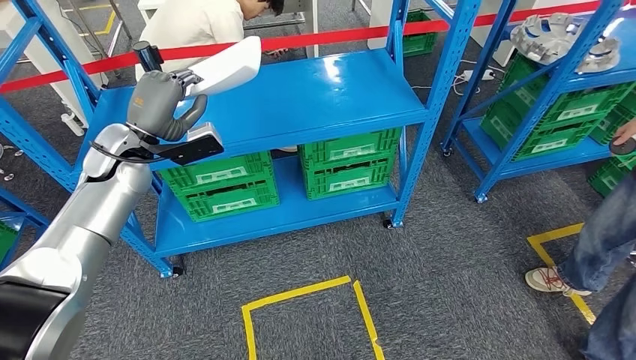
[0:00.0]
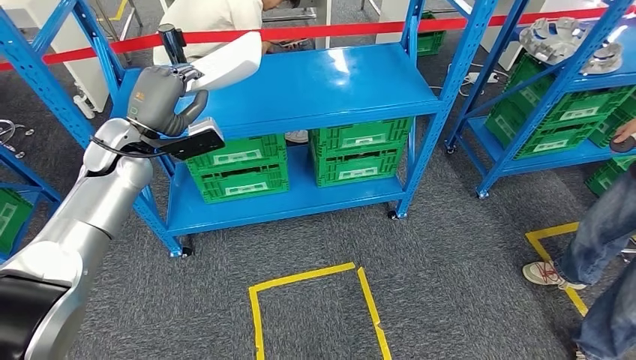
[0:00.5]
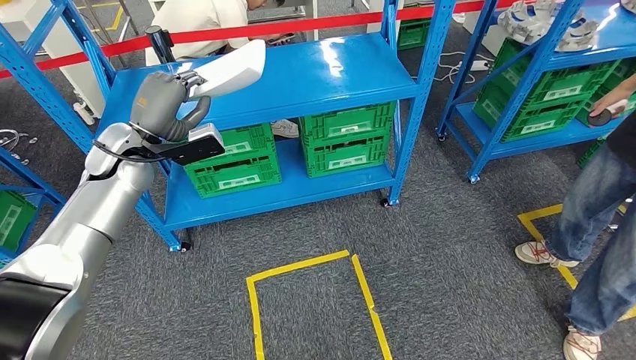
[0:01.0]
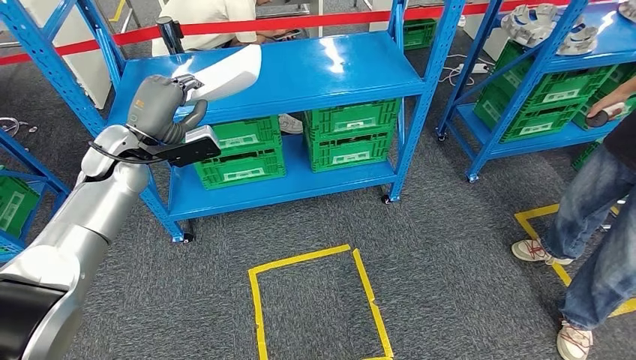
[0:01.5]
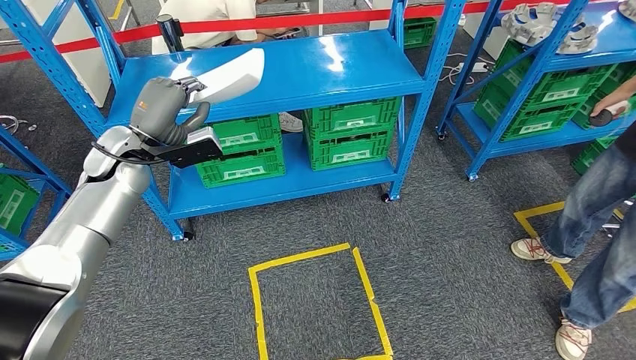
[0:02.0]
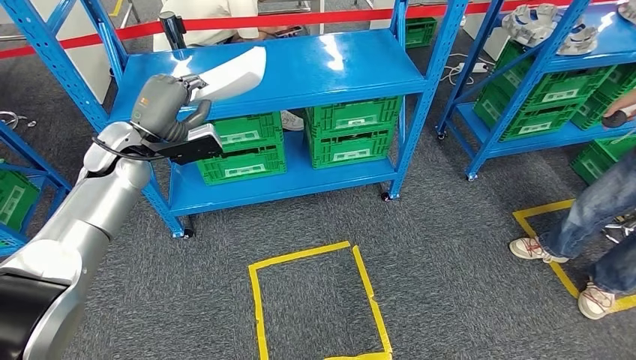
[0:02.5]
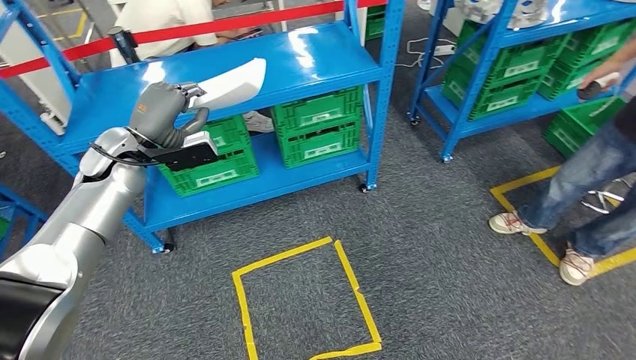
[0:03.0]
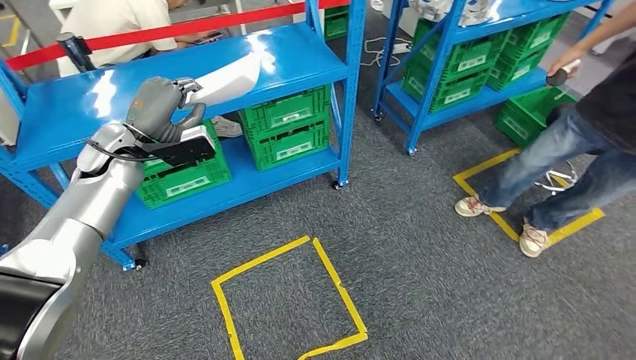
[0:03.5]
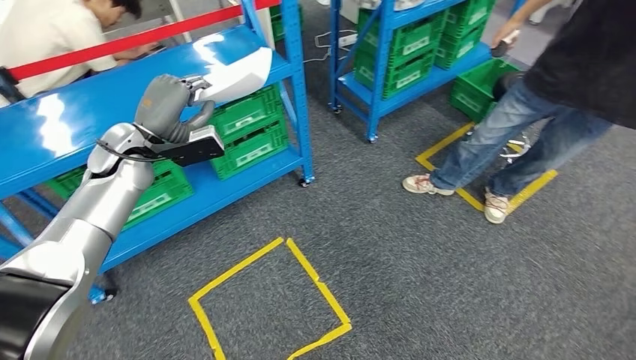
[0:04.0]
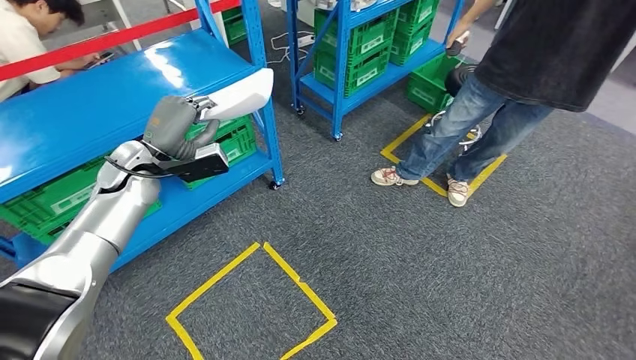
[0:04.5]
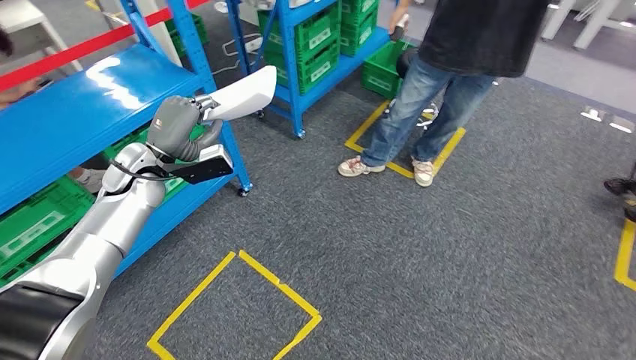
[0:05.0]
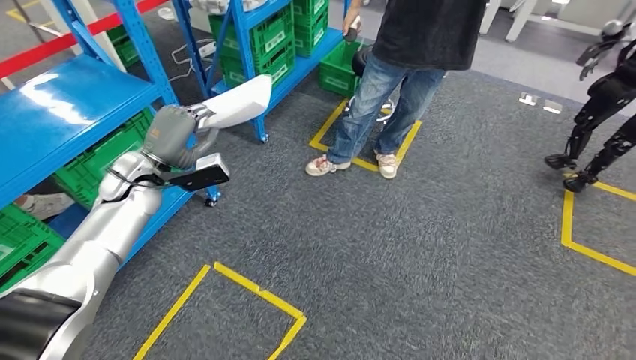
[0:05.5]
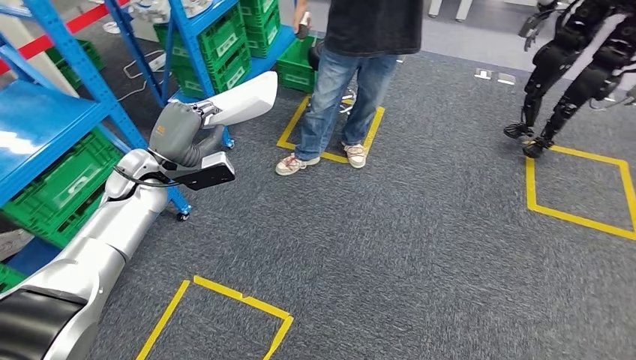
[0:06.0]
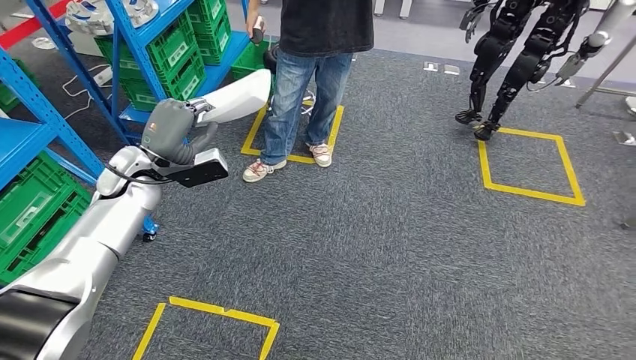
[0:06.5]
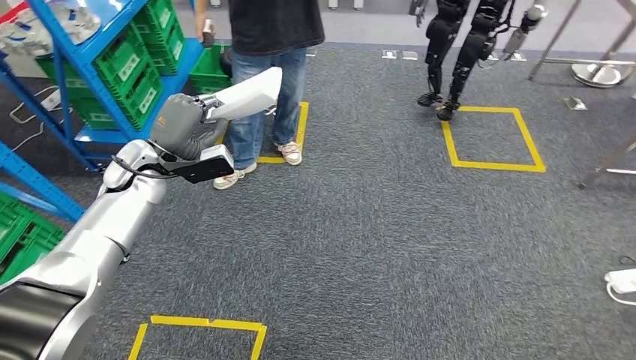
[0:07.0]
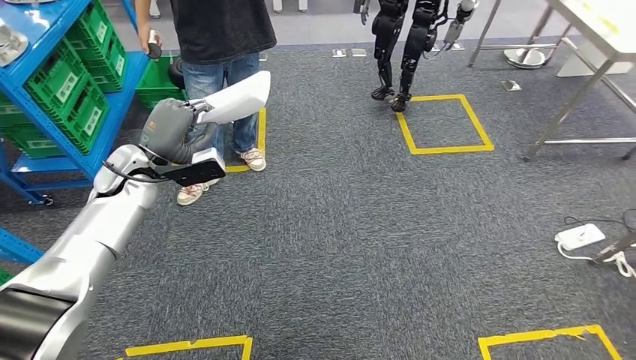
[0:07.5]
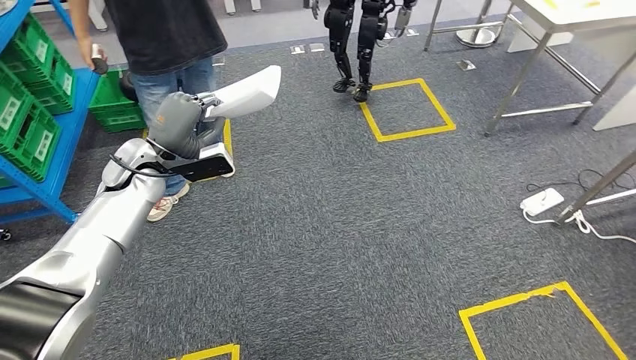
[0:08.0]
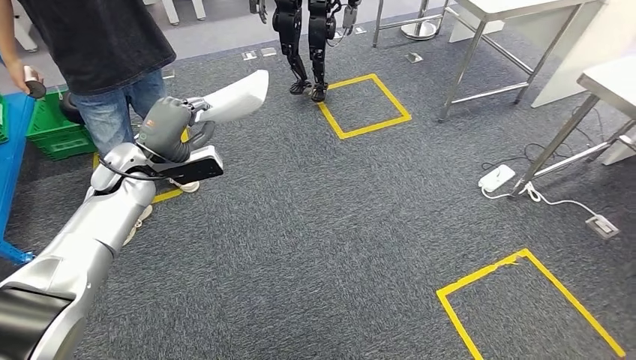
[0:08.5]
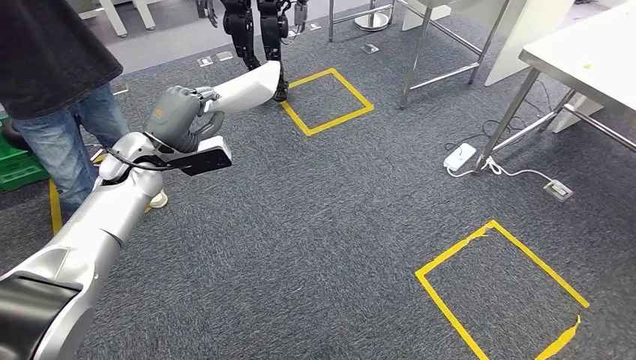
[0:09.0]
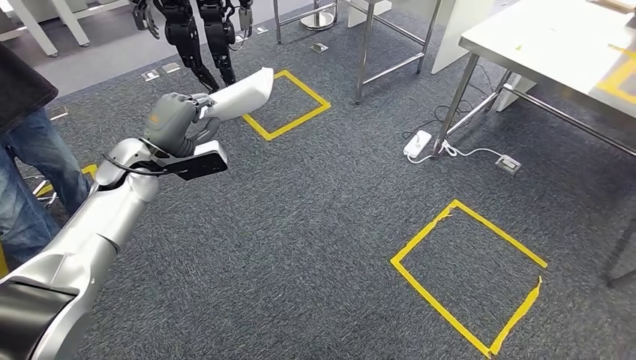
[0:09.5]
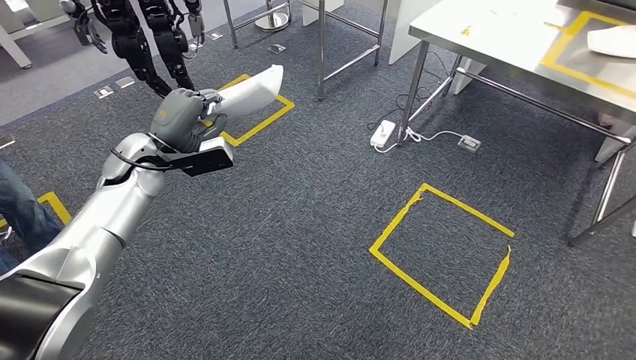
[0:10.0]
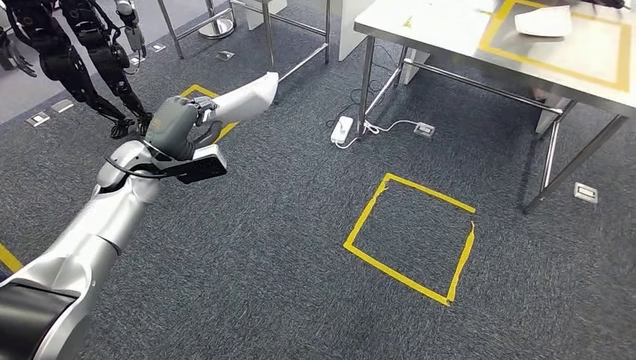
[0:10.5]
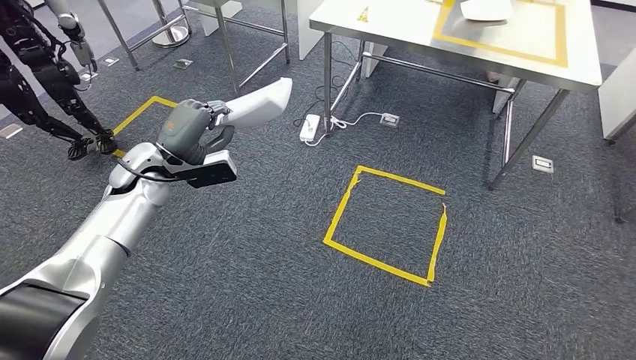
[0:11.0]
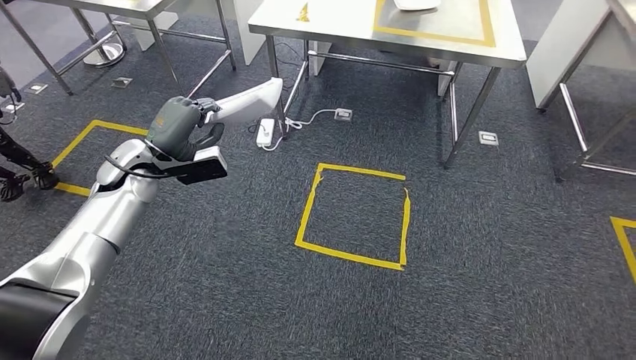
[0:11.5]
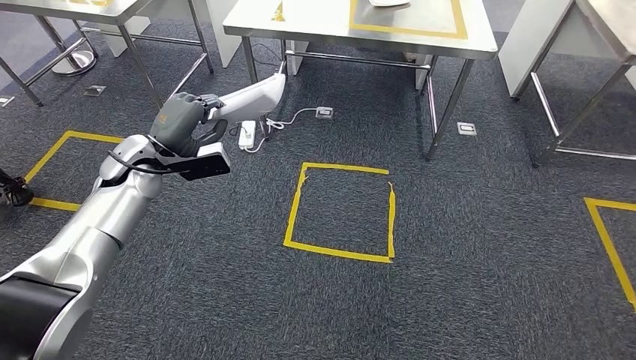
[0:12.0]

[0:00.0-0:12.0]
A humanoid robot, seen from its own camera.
Step, 0:00.0 to 0:09.5: Move the small component to the workbench.

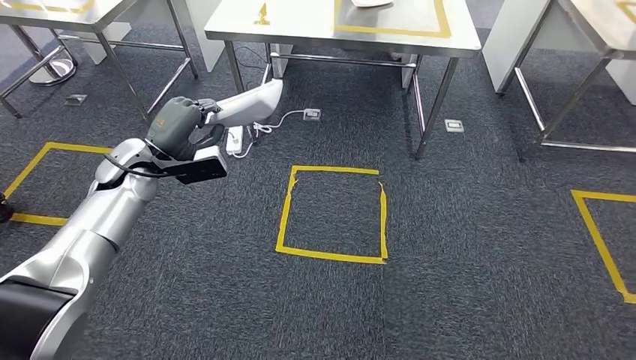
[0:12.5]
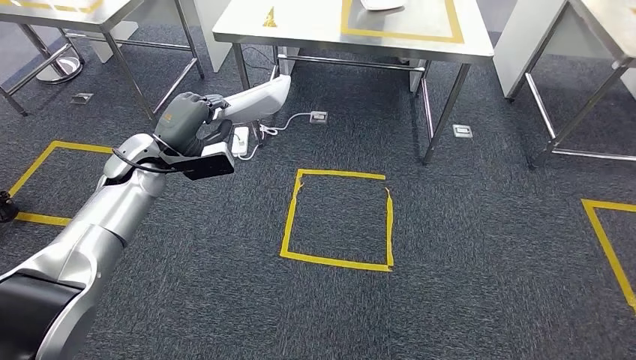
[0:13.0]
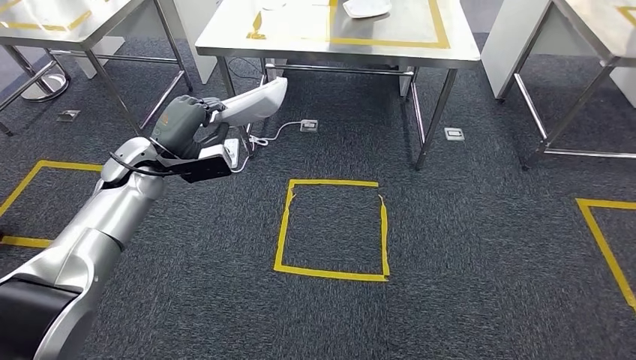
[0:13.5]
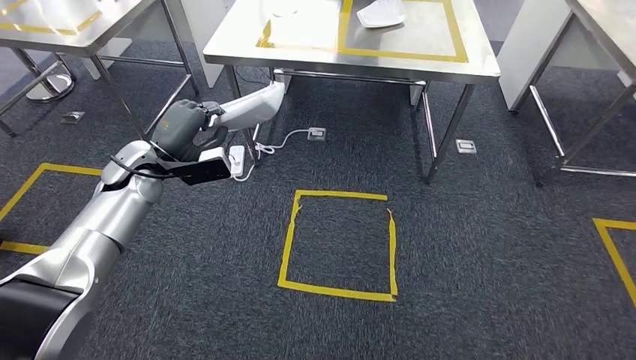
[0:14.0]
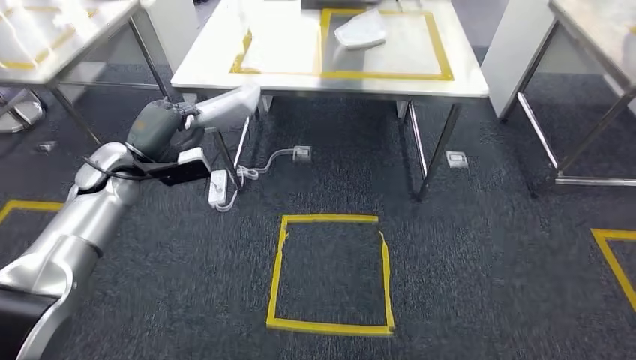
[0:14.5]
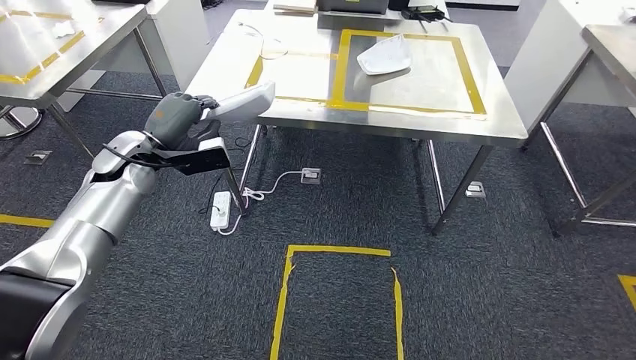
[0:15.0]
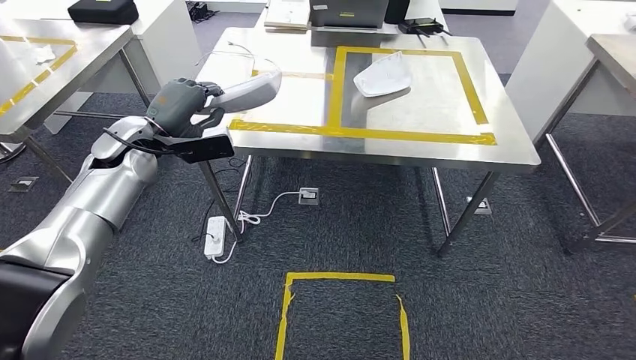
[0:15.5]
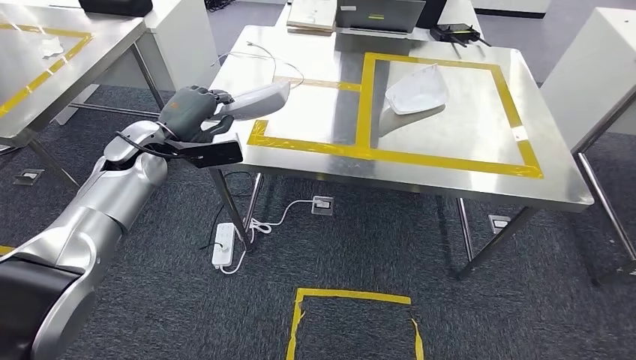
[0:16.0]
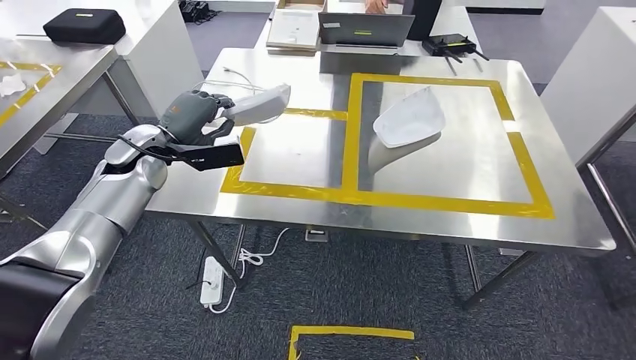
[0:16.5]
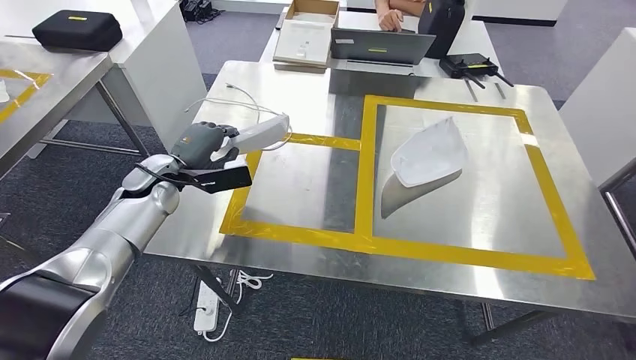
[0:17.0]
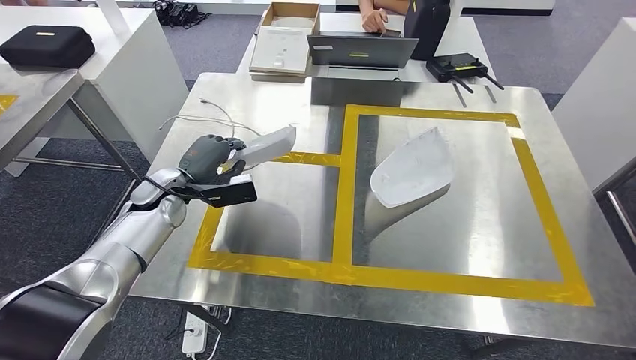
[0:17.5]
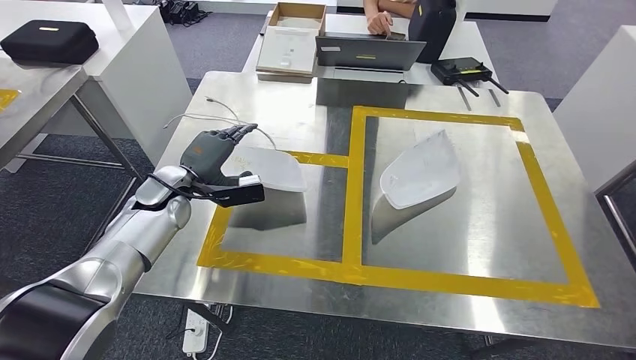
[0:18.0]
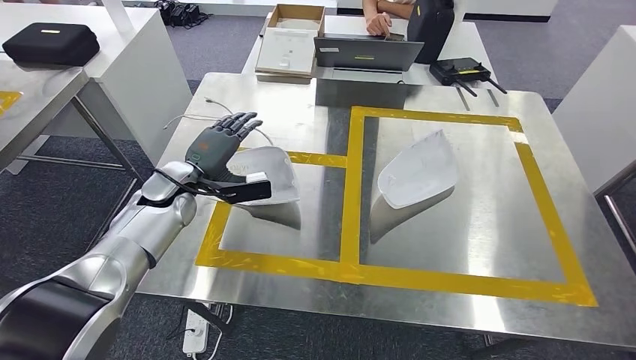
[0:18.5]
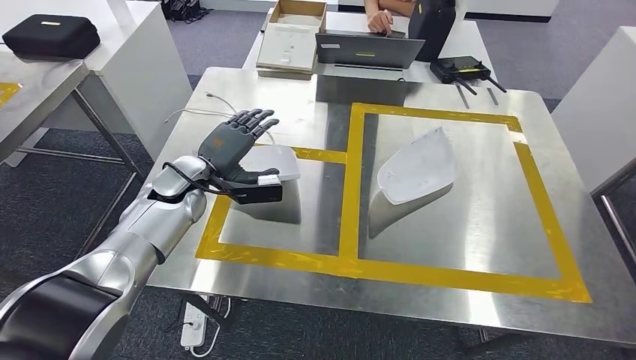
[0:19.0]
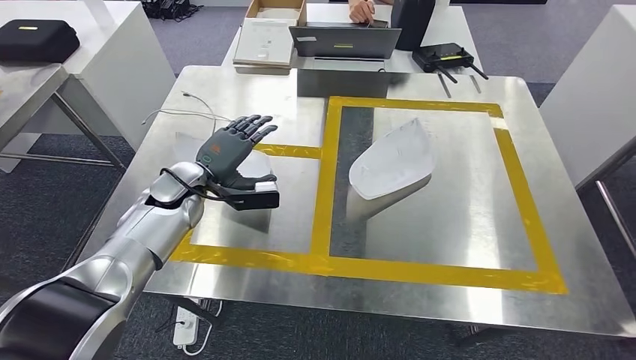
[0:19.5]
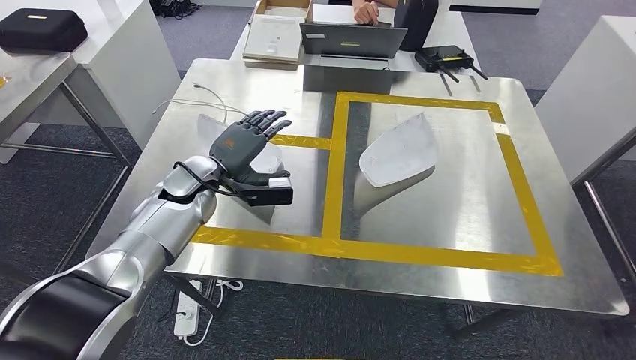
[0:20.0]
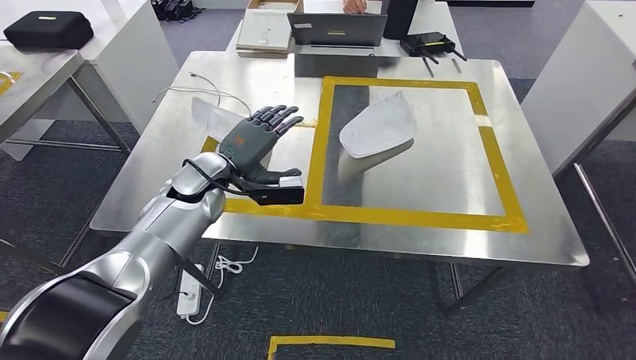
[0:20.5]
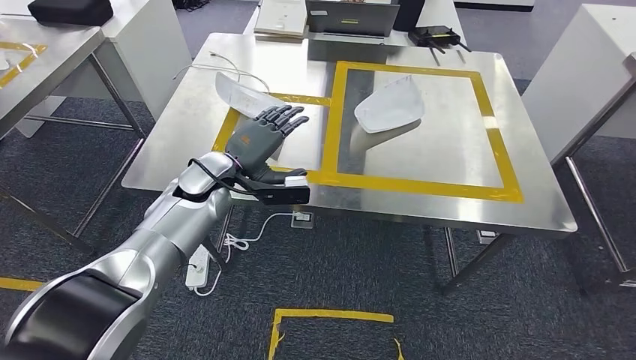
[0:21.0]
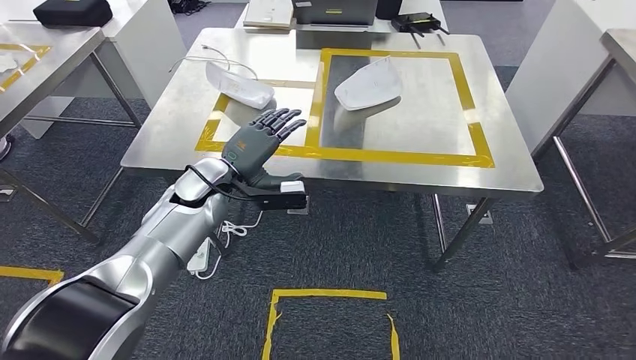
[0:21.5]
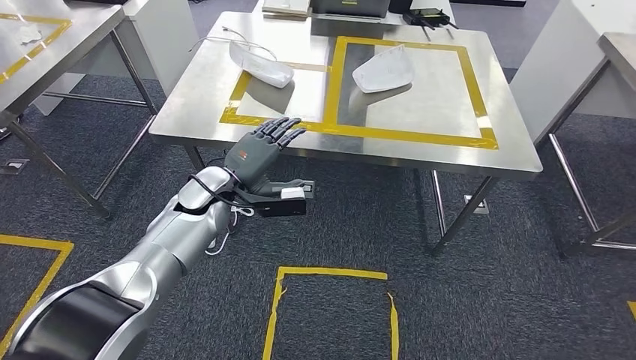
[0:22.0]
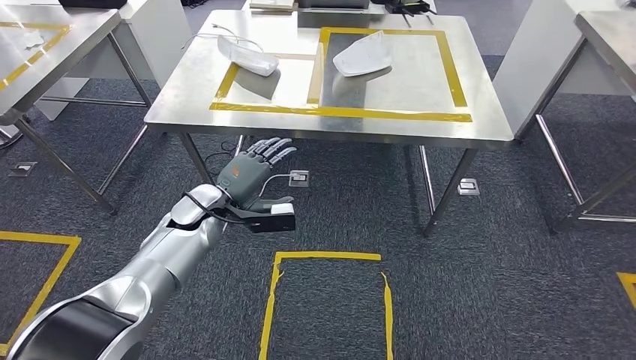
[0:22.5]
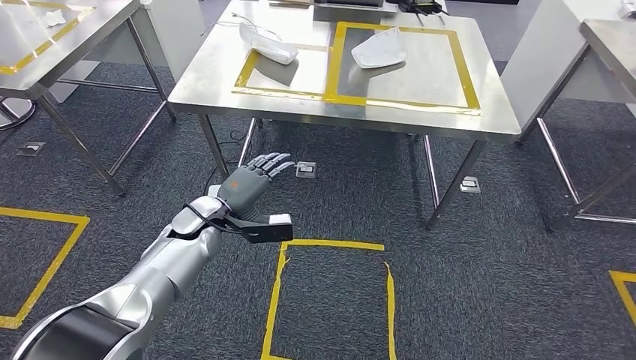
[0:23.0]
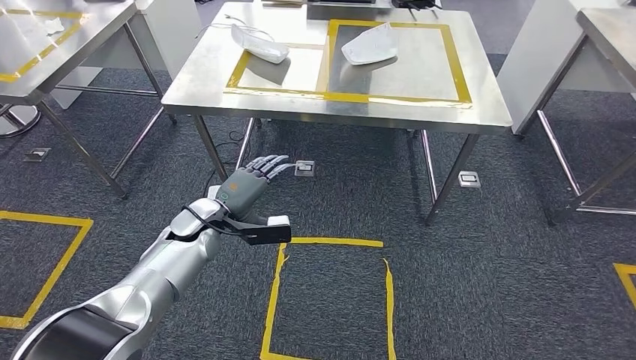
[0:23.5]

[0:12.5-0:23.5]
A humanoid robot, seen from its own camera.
Step, 0:12.5 to 0:20.5: Insert the small component into the corresponding slot on the workbench.
Step, 0:21.0 to 0:23.5: Return to the initial position at the workbench.
